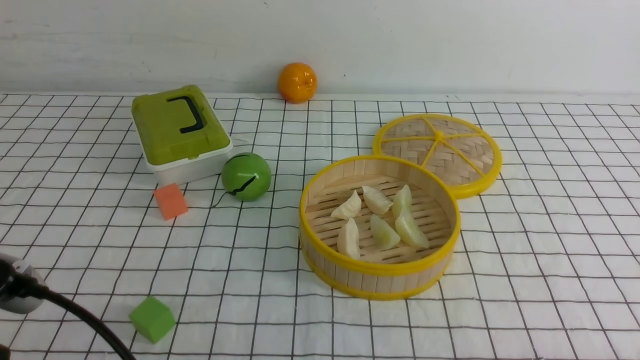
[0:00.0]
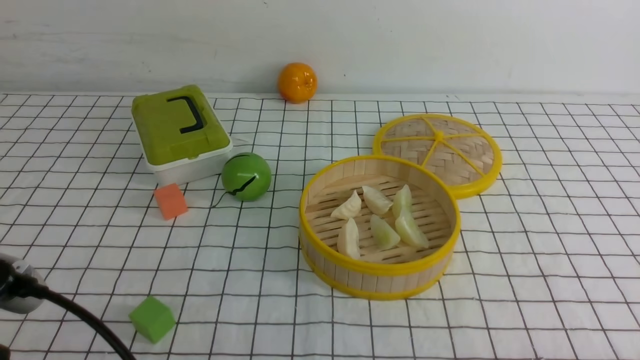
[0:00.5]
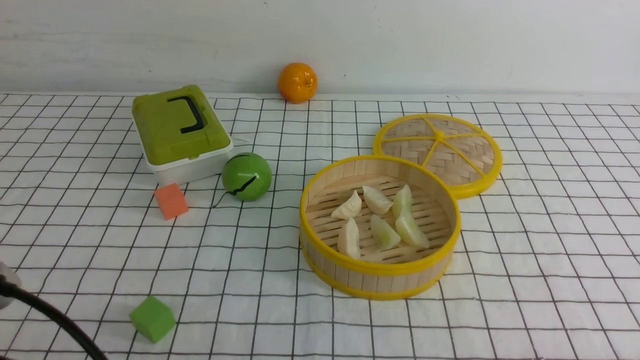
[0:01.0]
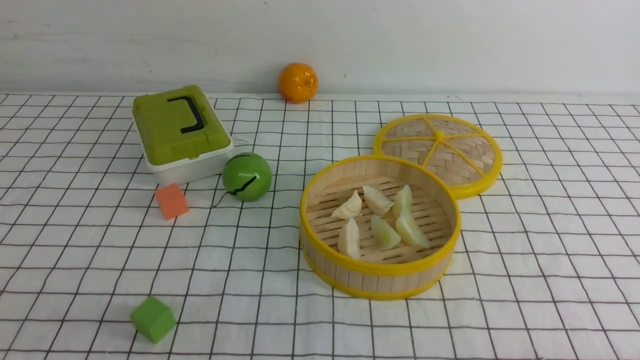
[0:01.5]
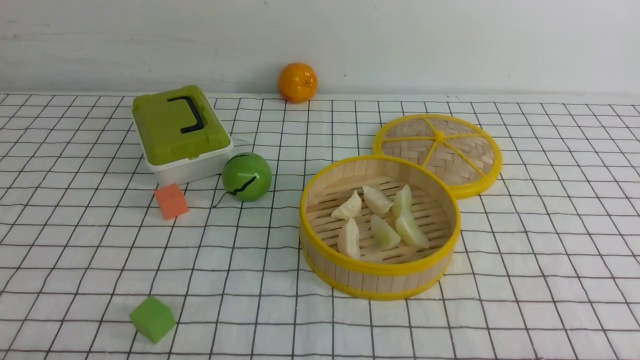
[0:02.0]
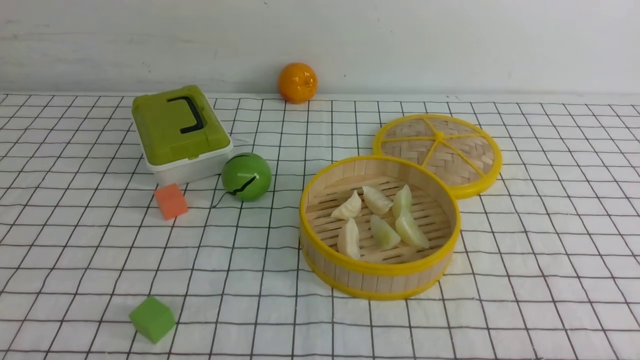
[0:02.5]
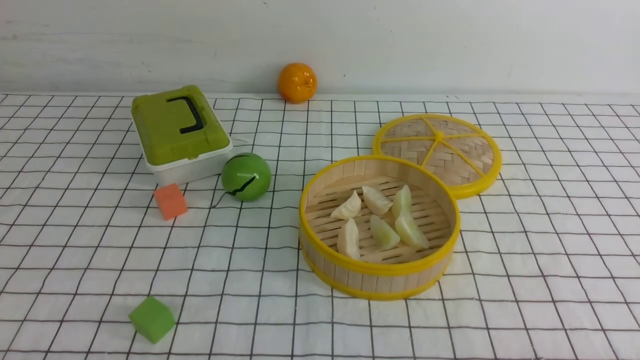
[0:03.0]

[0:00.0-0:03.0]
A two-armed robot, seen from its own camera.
Task of the whole recording: put the dumplings into the steamer on the table with the white tablecloth.
0:00.0 to 0:01.5: The left gripper is displaced downward and to the left by roughly 10 cm.

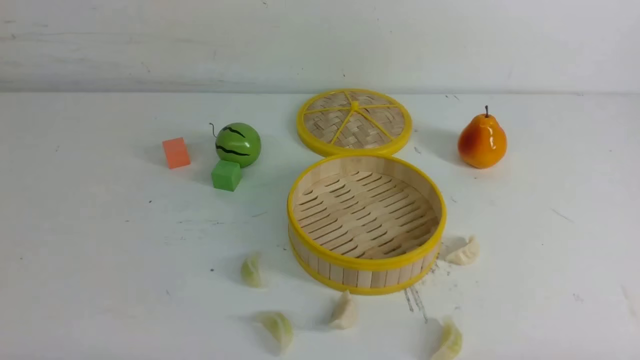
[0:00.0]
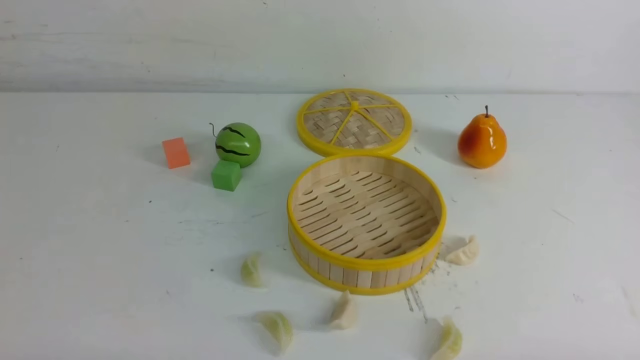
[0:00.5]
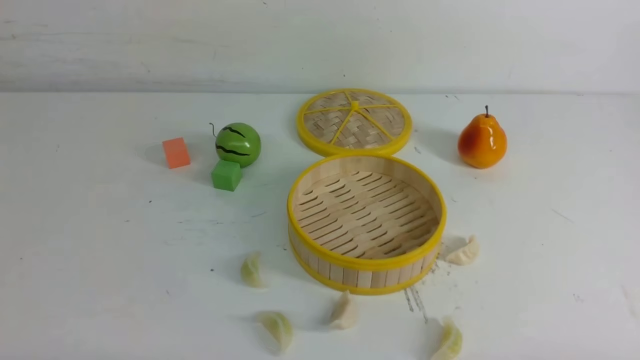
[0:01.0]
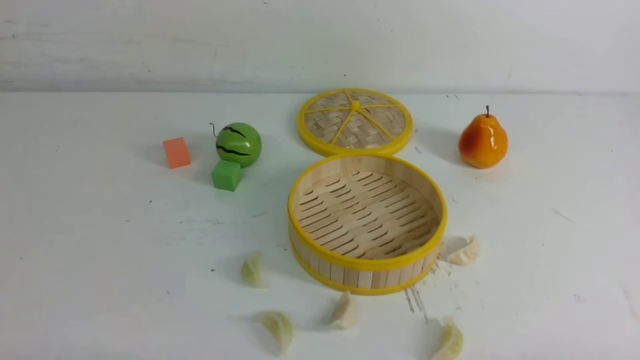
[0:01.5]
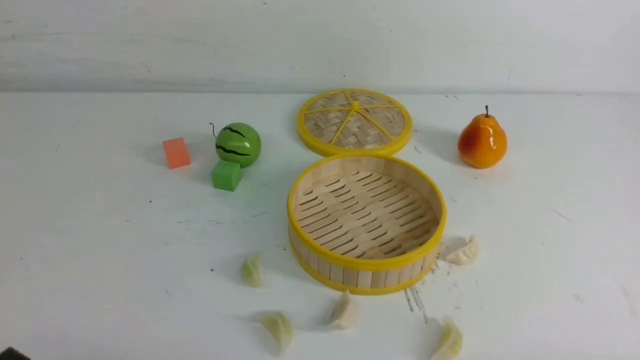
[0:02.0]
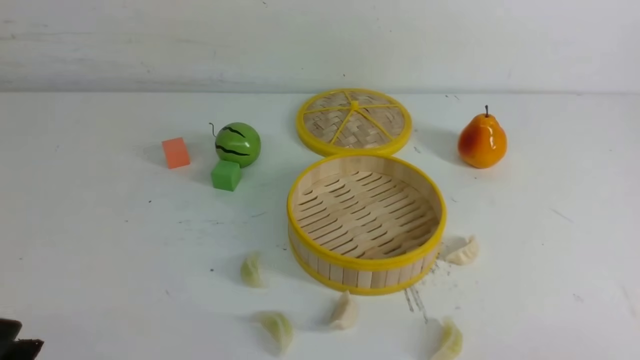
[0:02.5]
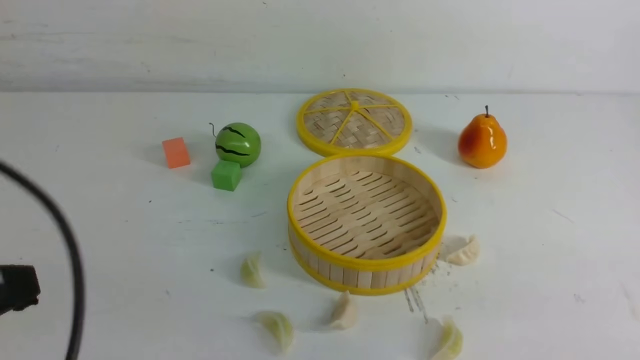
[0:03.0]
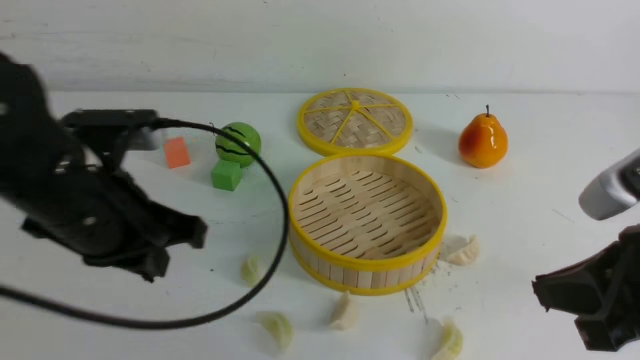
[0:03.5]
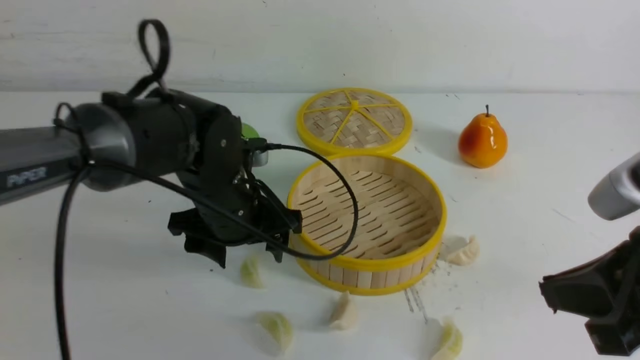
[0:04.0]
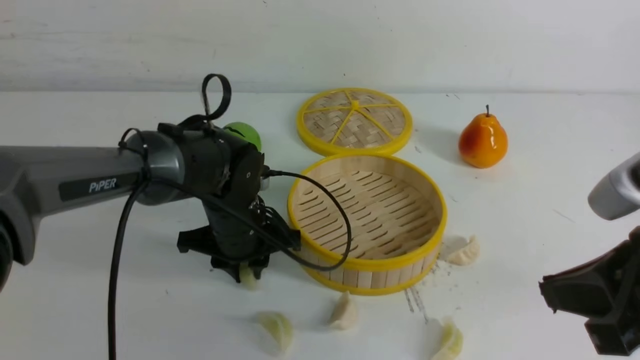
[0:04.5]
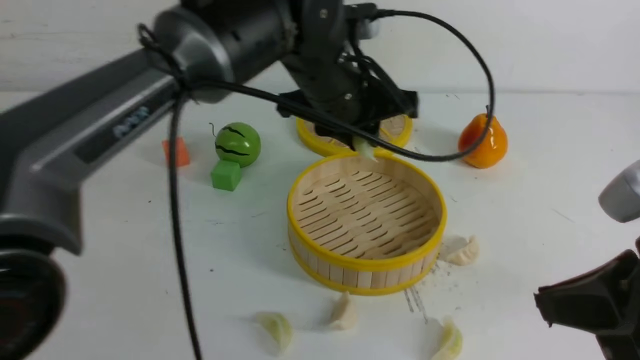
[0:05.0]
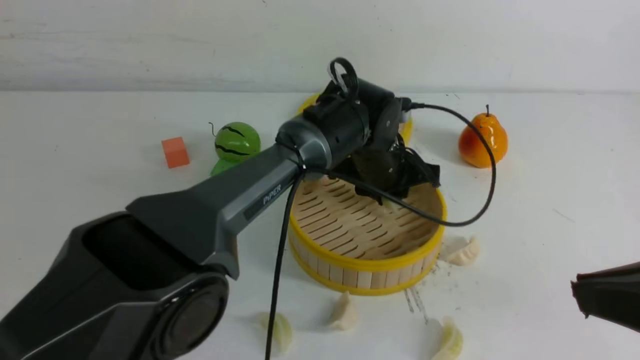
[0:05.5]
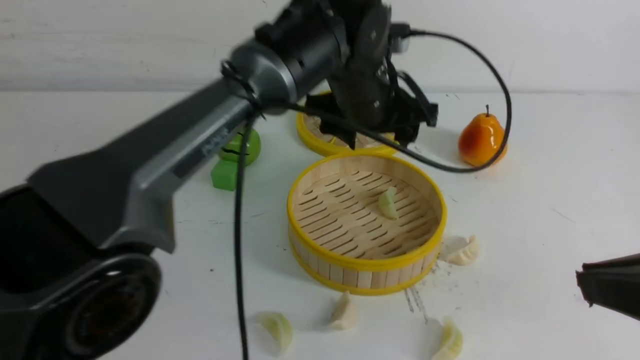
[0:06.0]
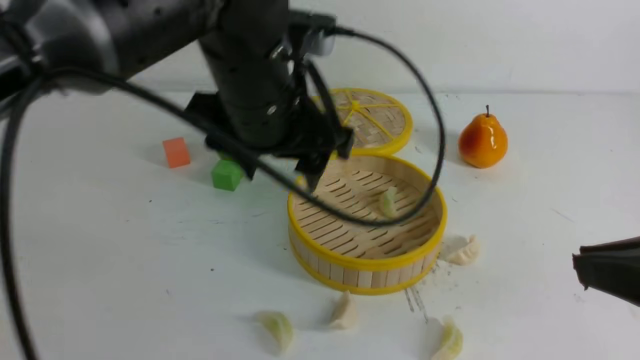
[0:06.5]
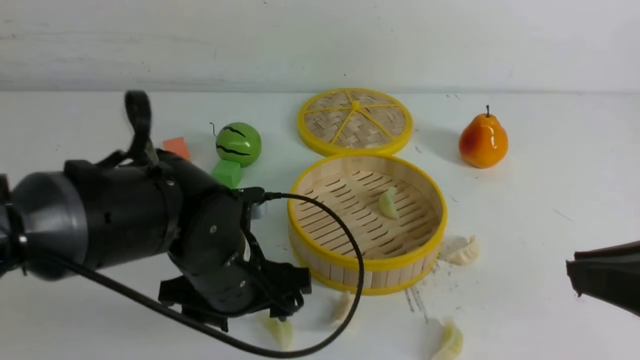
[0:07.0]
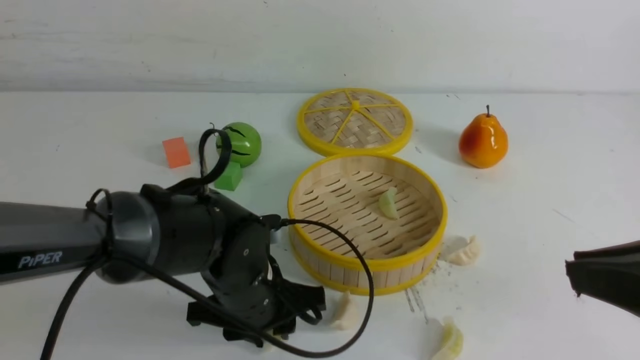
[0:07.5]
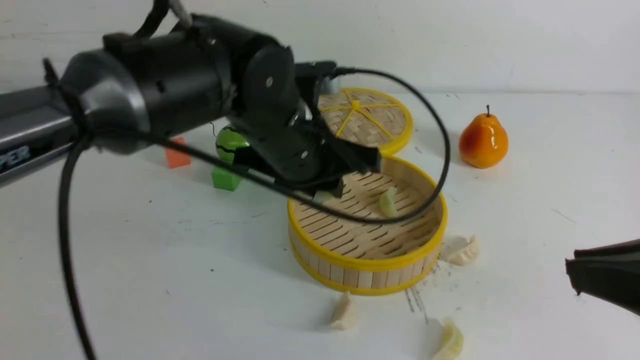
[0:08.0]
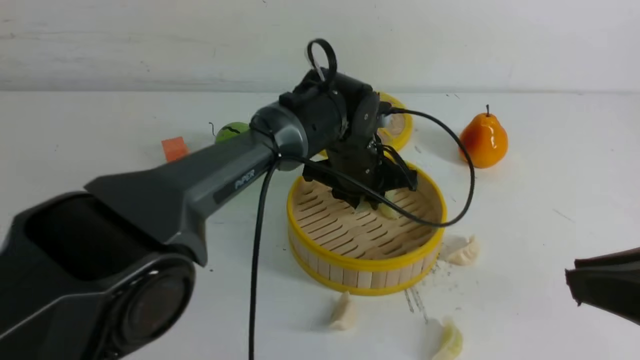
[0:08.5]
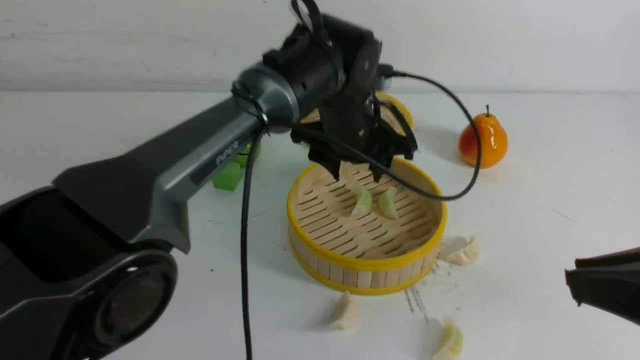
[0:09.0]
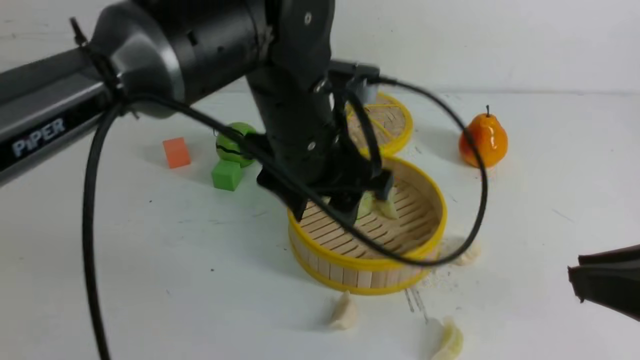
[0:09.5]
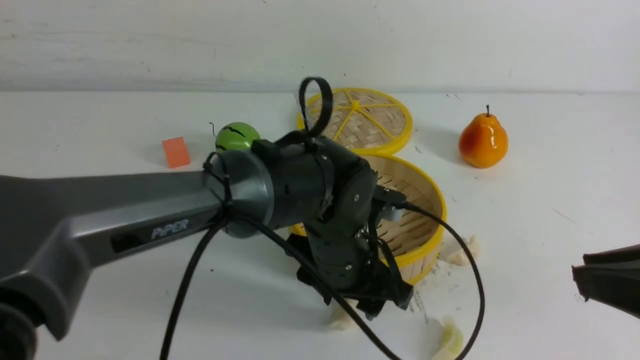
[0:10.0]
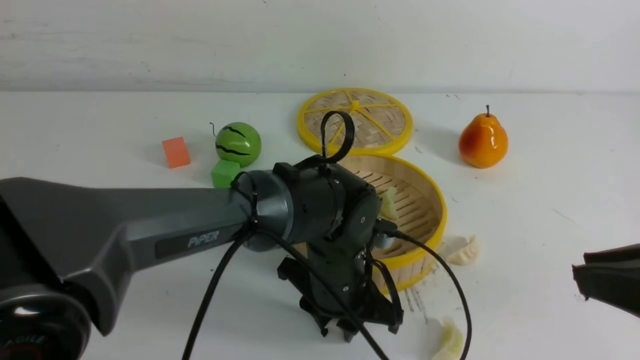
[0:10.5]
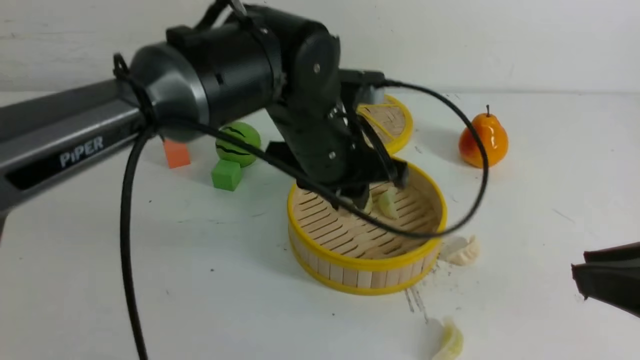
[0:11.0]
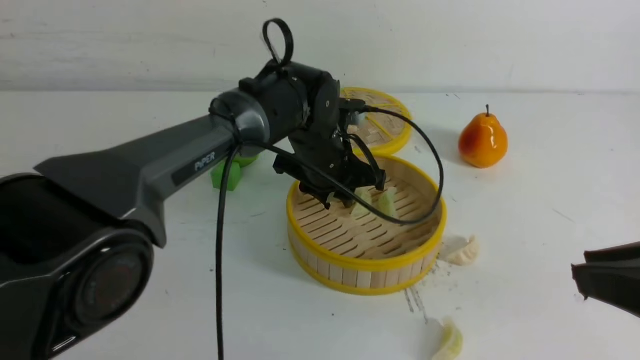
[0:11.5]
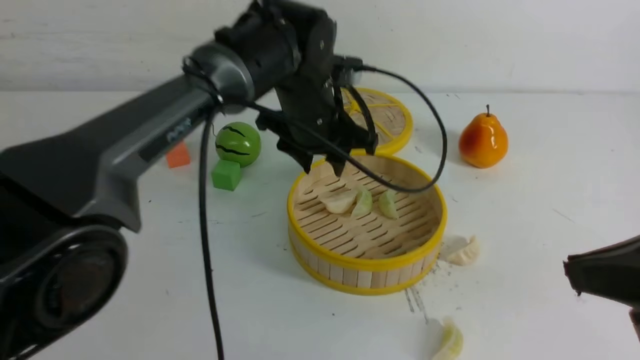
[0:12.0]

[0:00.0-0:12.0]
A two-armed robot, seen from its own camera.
Task of the whole recording: put the dumplings into the steamer on the white table.
Step, 0:00.0 to 0:04.5: use the left arm to grab a dumpling.
Step, 0:05.0 to 0:05.5: use the left arm to put the dumpling into the steamer.
Step, 0:06.0 to 0:07.5: use the left arm to grab a dumpling.
Step, 0:08.0 to 0:08.5: use the left arm to put the dumpling into the steamer.
Step, 0:09.5 to 0:10.5: use the left arm to grab a dumpling.
Step, 0:11.0 to 0:12.0: use the left arm to put the dumpling into the steamer.
0:02.0 to 0:04.0: The left gripper is displaced forward and to the right by roughly 35 cm, and opens up. Meanwhile the right gripper travels upward, forward and to the left by about 20 cm, and closes.
0:04.0 to 0:06.0: The left gripper moves to the right, upward and forward, about 20 cm, and closes, then opens again. The right gripper shifts by roughly 5 cm.
0:06.0 to 0:08.0: The left gripper heads backward and to the left, covering some 10 cm, moves approximately 15 cm downward and comes back, and closes up.
0:08.0 to 0:10.0: The left gripper goes roughly 10 cm downward, goes forward and returns, approximately 10 cm each way, and opens its fingers.
0:10.0 to 0:12.0: The left gripper goes up and down, about 15 cm each way, reversing 2 times.

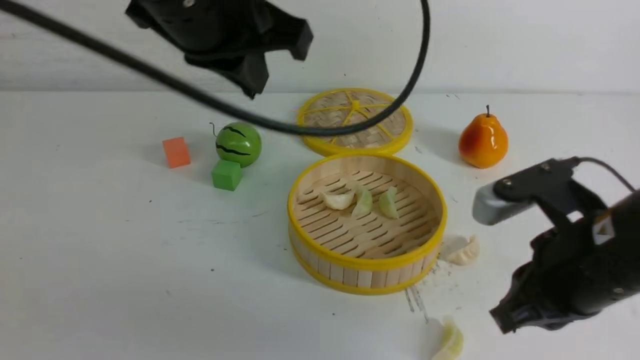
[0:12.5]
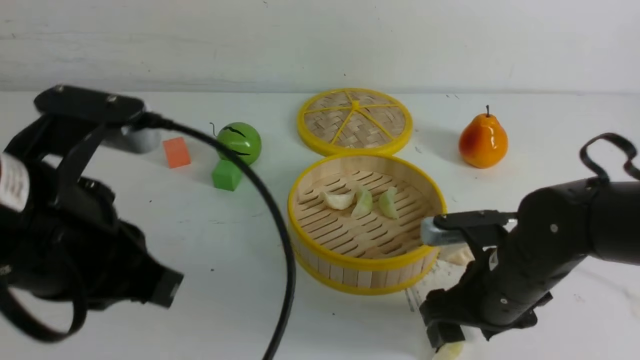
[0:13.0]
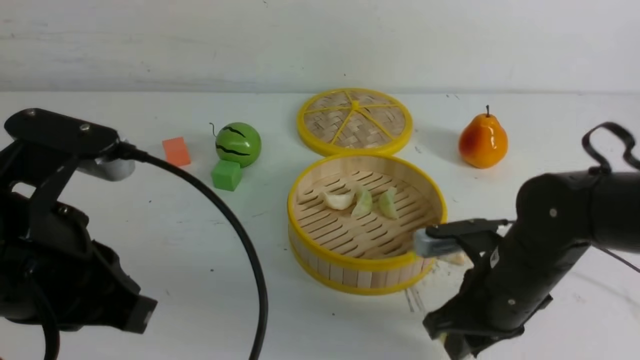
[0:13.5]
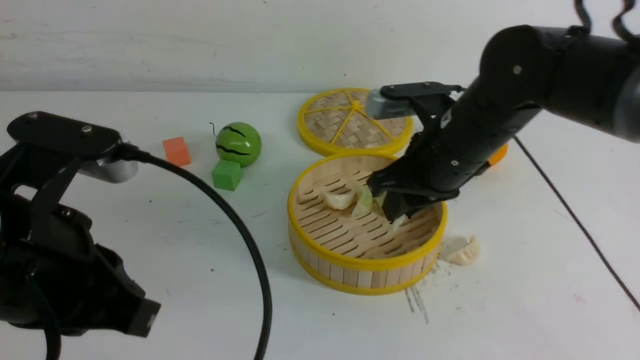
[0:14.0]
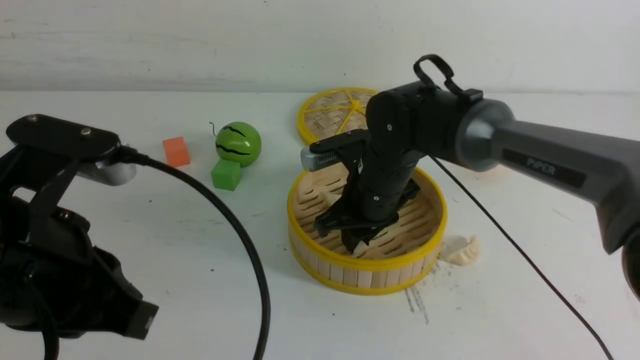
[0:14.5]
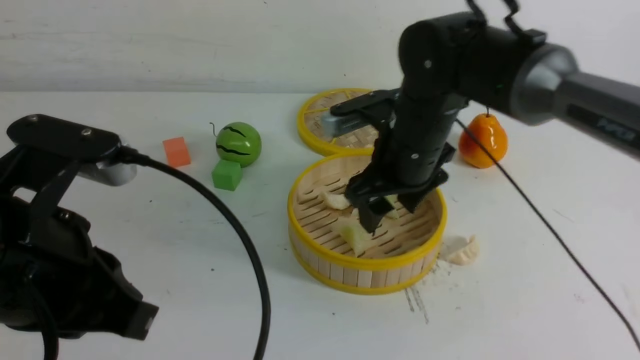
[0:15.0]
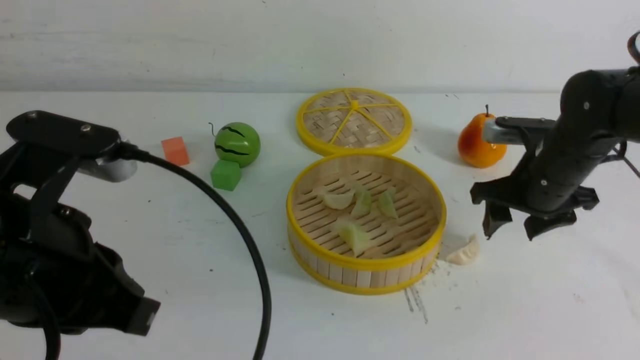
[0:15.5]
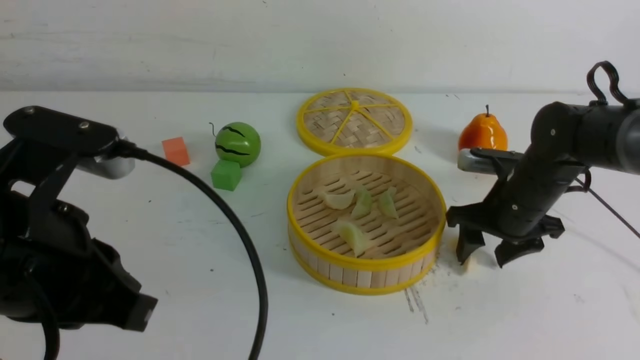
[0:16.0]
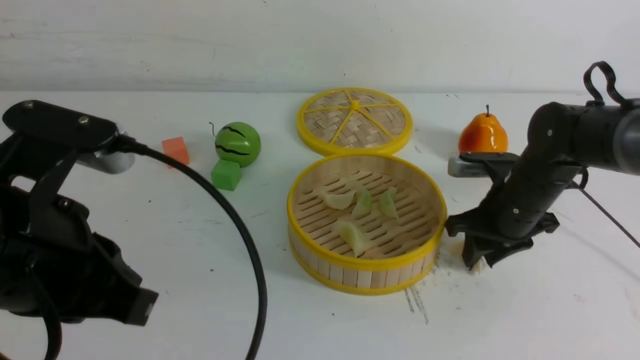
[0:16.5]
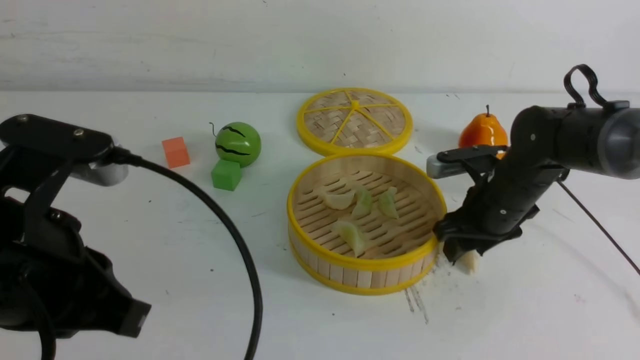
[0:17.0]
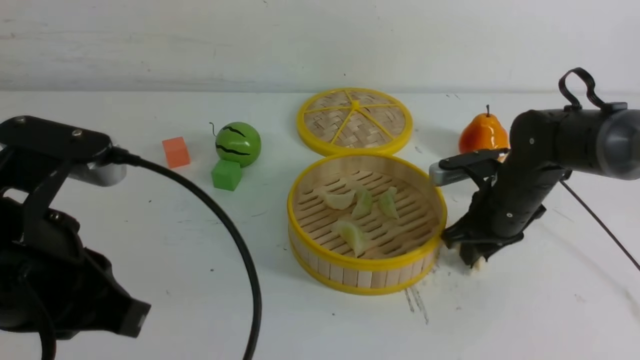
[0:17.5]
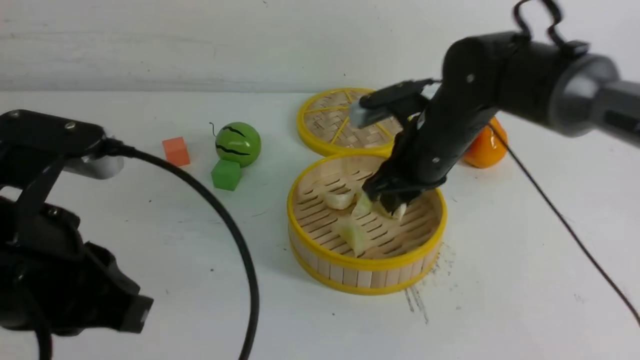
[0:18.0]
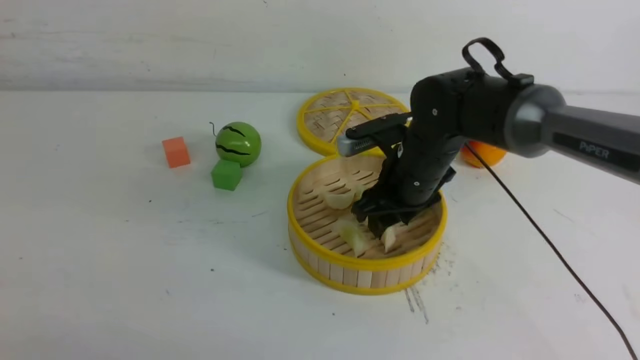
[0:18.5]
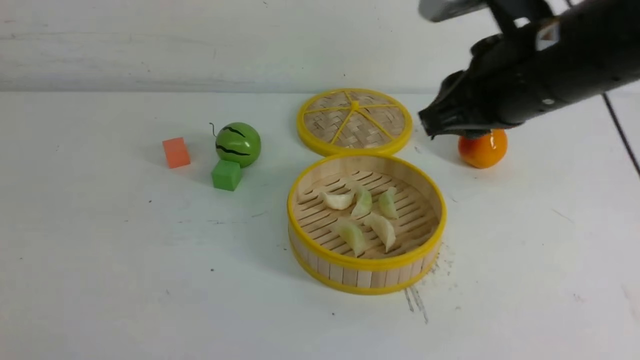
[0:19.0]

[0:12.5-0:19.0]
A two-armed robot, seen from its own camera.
Task of the whole recording: put the dumplings into the steamer on the white table.
Step, 0:12.5 to 0:13.5: use the right arm to grab a dumpling.
Step, 0:14.0 to 0:14.5: use the right arm to put the dumpling into the steamer.
Step, 0:15.5 to 0:17.5: use the right arm to grab a dumpling.
Step, 0:18.0 to 0:18.5: use the right arm to put the dumpling into the steamer.
0:12.5 to 0:14.5: The left gripper goes some 15 cm backward, downward and to the left. The right gripper is displaced forward and to the left by approximately 20 cm, and opens its fingers.
0:14.5 to 0:17.0: The right gripper shifts roughly 15 cm to the right.
0:17.0 to 0:19.0: The right gripper shifts approximately 25 cm upward and backward, and closes up. The left gripper shifts some 15 cm backward and to the left.
